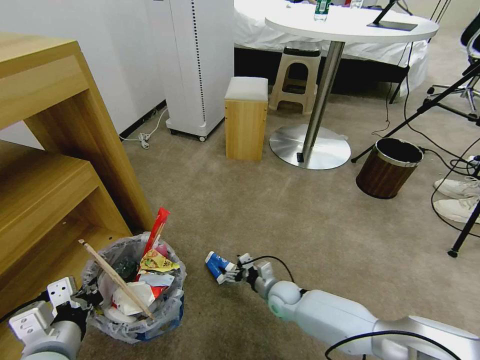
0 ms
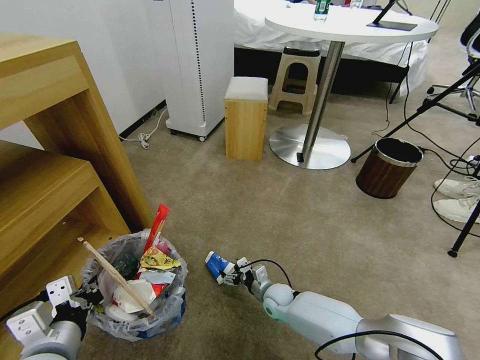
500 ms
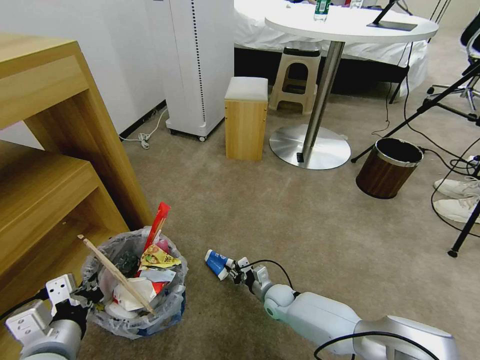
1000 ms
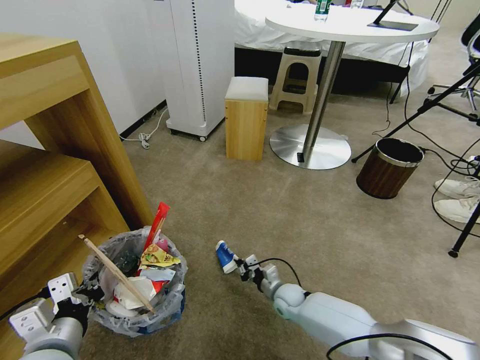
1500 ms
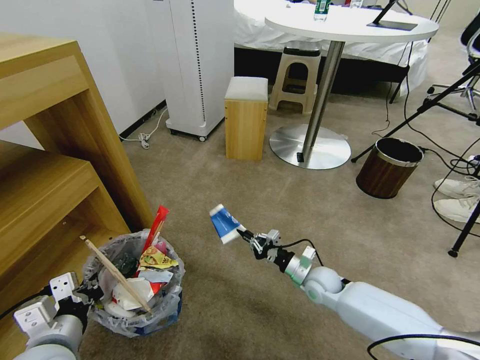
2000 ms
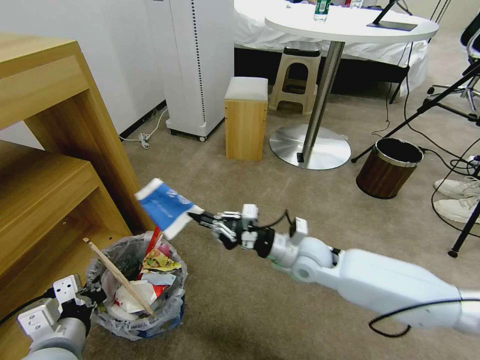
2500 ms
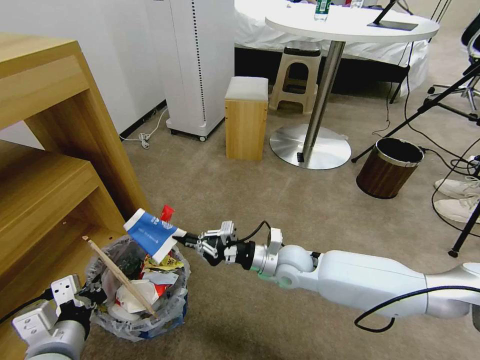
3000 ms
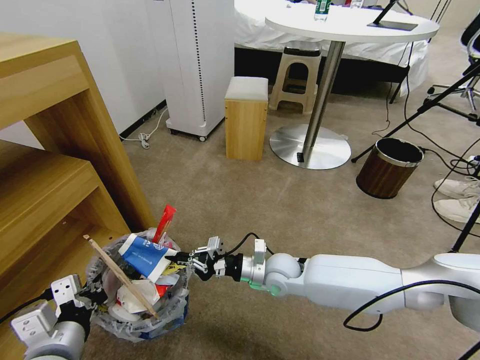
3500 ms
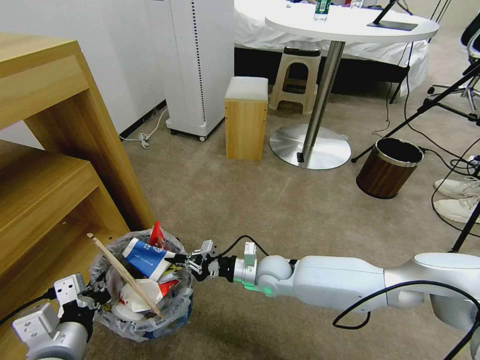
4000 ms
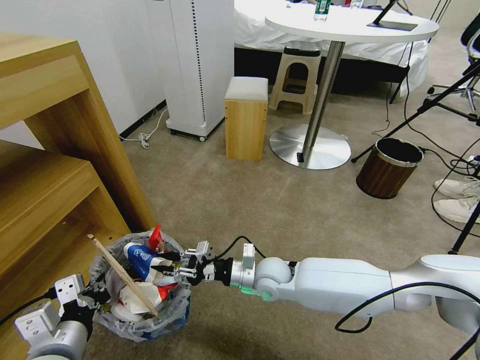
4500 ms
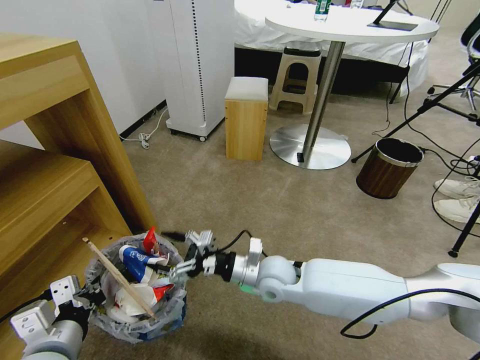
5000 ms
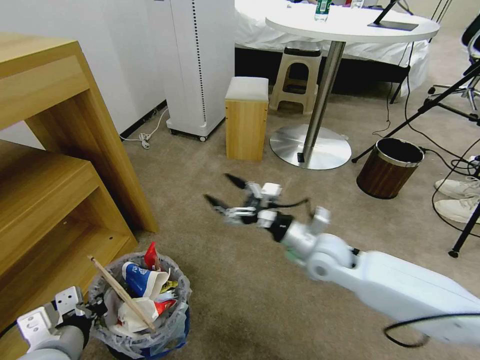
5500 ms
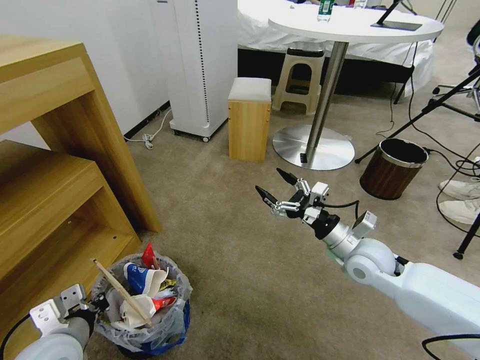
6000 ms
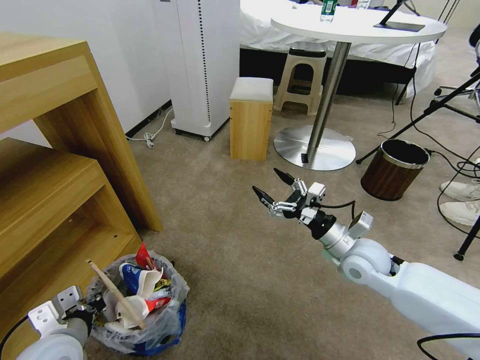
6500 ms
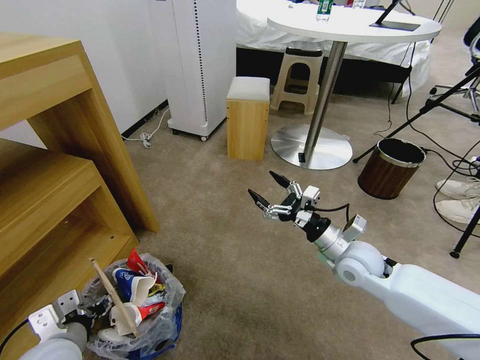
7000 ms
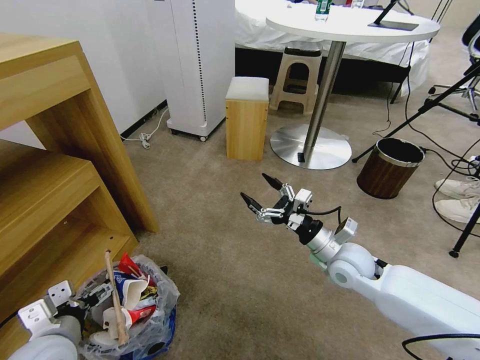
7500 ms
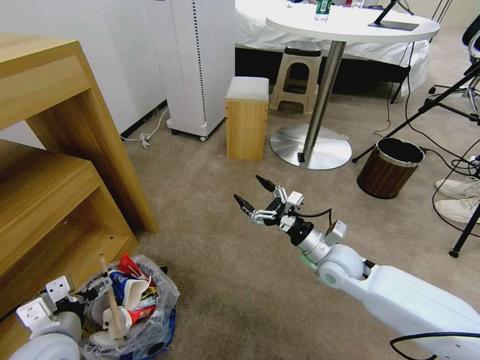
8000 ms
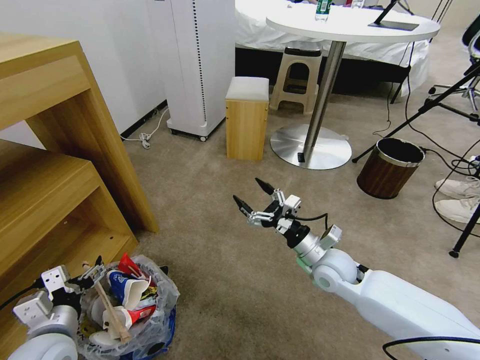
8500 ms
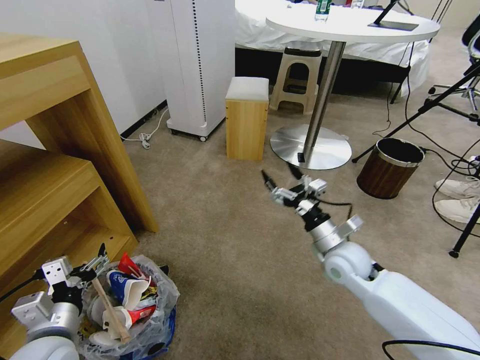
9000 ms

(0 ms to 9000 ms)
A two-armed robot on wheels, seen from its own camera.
Task of the whole recording: Pick up the trash bin and place the garbage on the floor into it.
0 ms - 2000 ms: The right gripper moves to the right and upward, some 10 cm, and closes.
2000 ms - 4500 ms: The right gripper travels to the left and upward by roughly 15 cm, and opens.
4500 ms - 7000 ms: The left gripper is displaced downward by roughly 5 cm, and opens, while the right gripper heads to the right and upward, covering roughly 20 cm, and opens up.

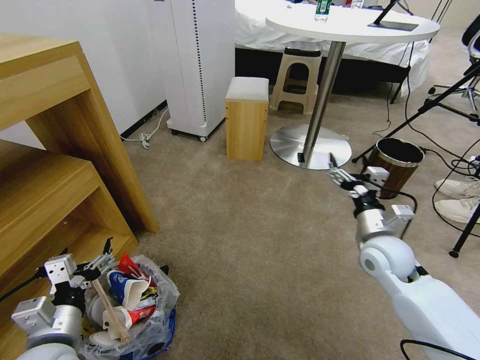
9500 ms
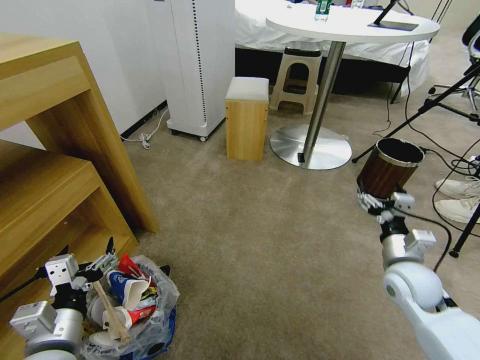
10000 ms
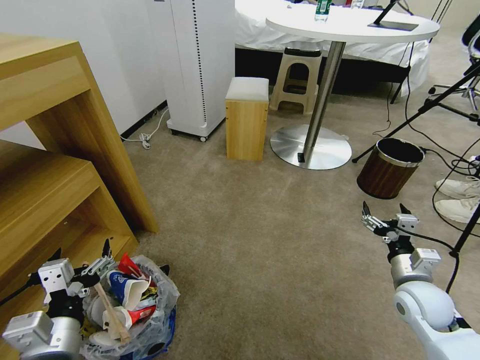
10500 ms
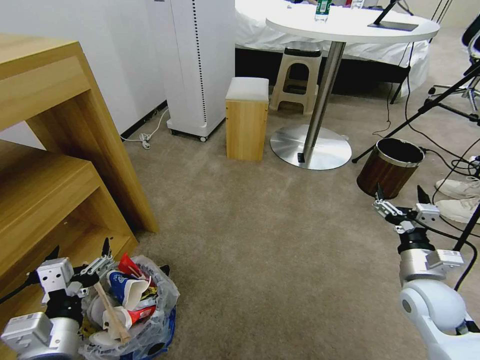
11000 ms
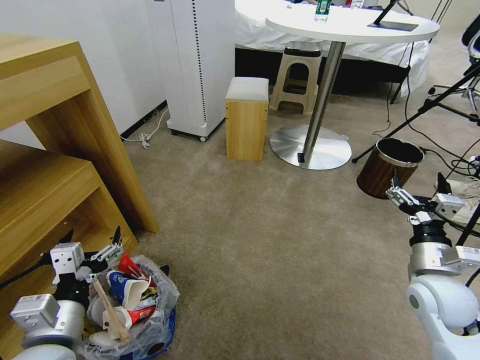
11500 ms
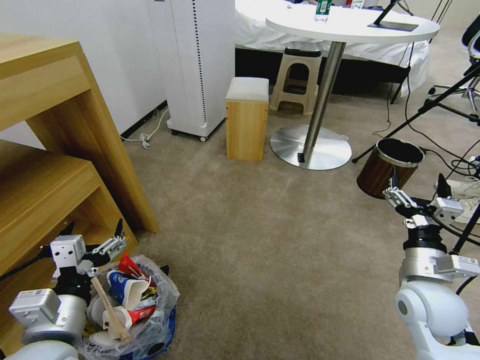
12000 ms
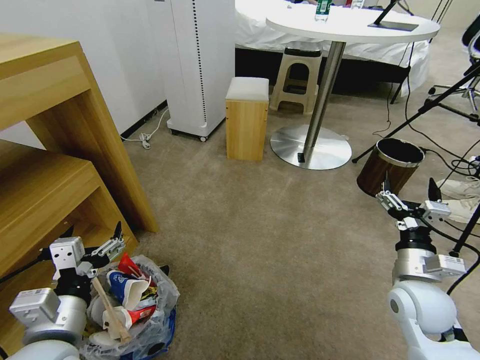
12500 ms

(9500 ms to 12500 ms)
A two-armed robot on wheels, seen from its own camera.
Task of the whole recording: Pick up the trash bin and place the garbage on the floor into it.
9500 ms - 11000 ms: The left gripper ends up about 5 cm from where it was. Meanwhile the right gripper travels backward and to the right by about 10 cm.
11000 ms - 12500 ms: The grippers stay close to where they were, moving slightly.
